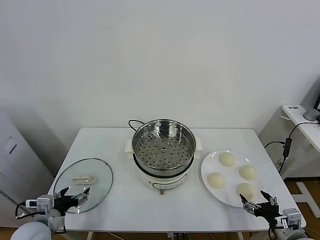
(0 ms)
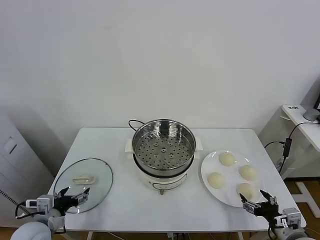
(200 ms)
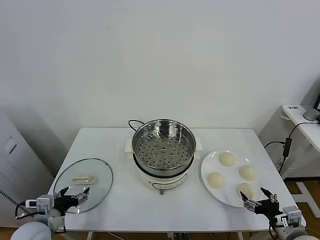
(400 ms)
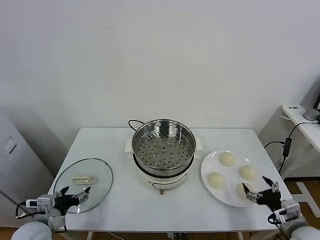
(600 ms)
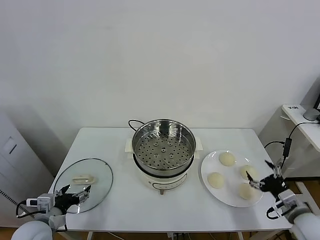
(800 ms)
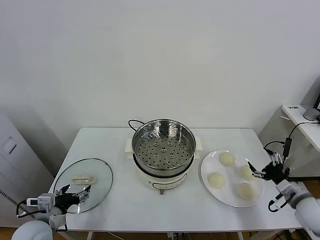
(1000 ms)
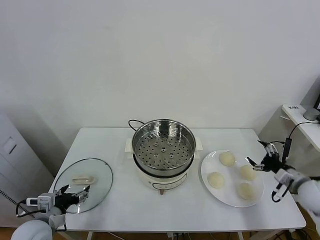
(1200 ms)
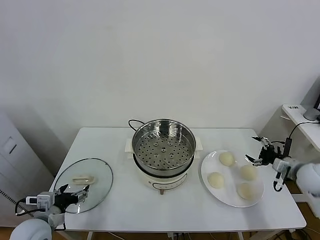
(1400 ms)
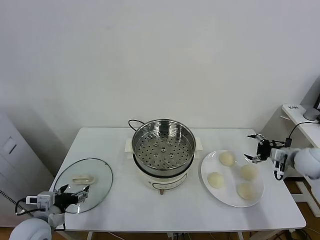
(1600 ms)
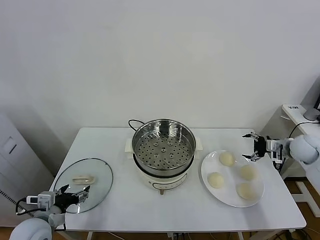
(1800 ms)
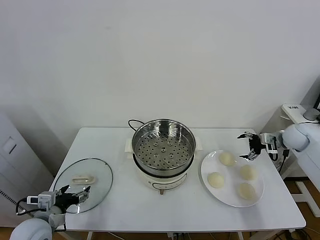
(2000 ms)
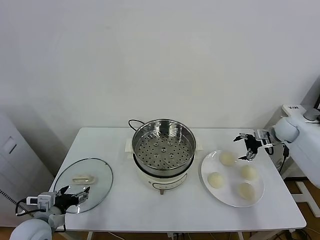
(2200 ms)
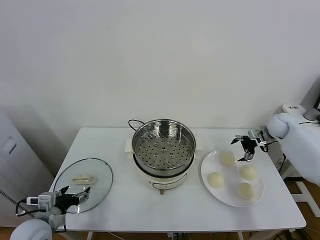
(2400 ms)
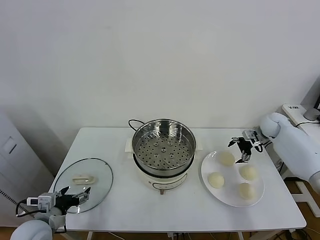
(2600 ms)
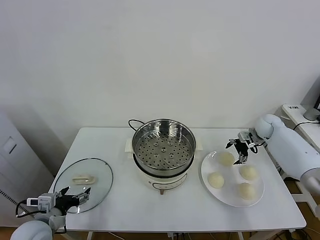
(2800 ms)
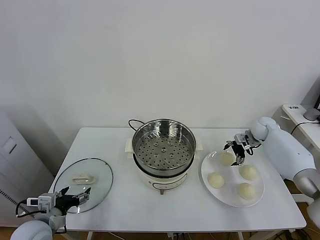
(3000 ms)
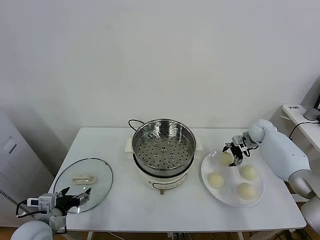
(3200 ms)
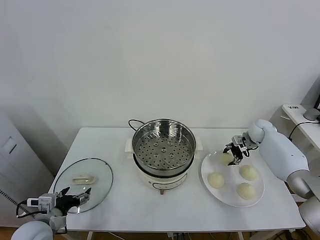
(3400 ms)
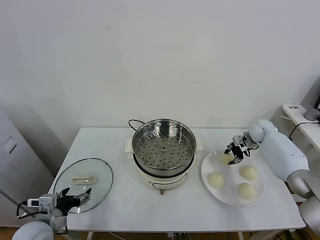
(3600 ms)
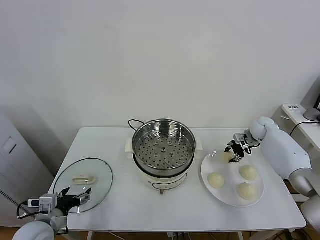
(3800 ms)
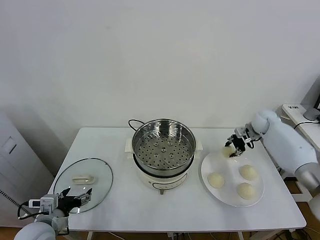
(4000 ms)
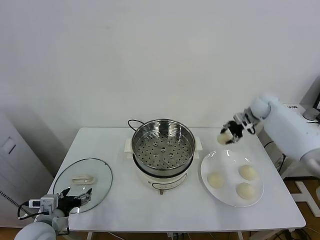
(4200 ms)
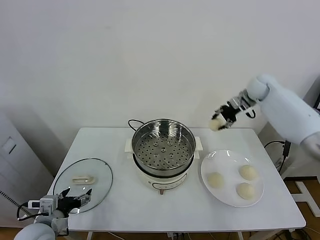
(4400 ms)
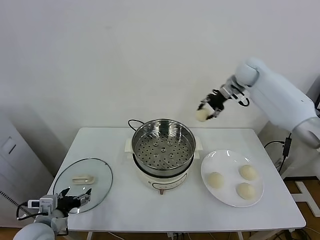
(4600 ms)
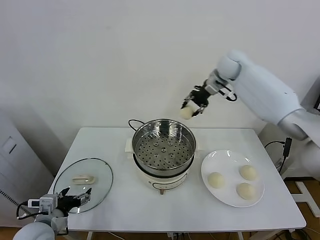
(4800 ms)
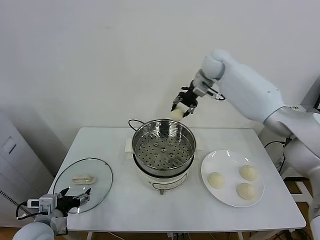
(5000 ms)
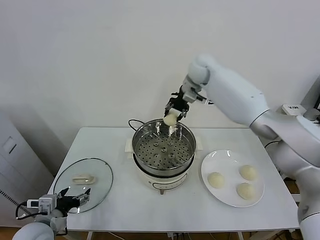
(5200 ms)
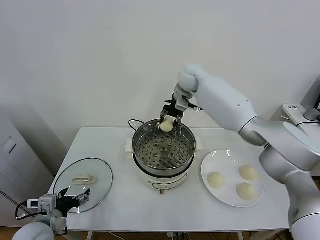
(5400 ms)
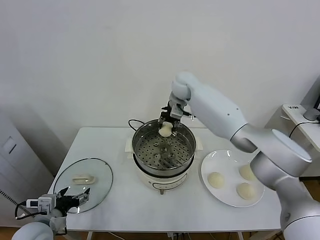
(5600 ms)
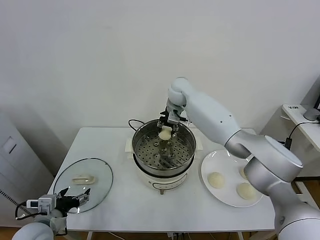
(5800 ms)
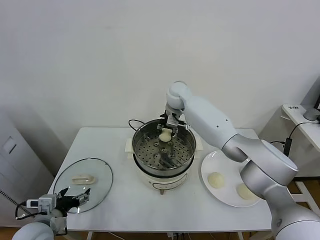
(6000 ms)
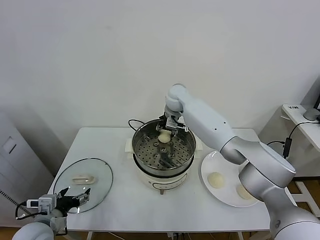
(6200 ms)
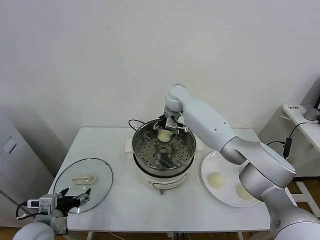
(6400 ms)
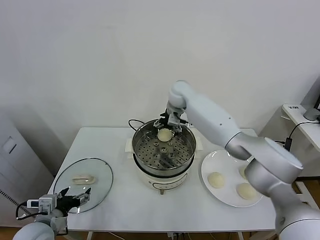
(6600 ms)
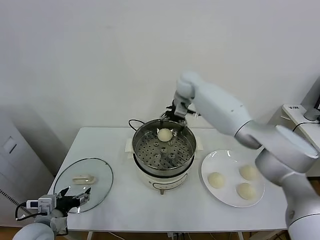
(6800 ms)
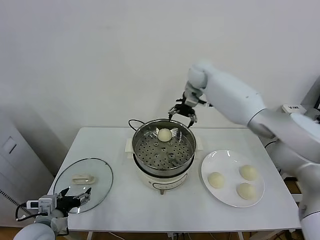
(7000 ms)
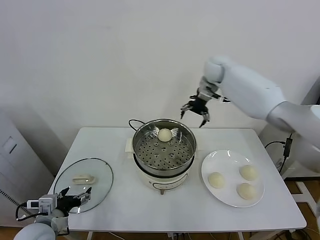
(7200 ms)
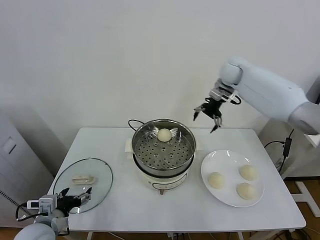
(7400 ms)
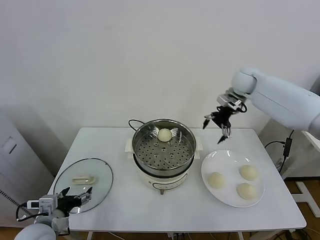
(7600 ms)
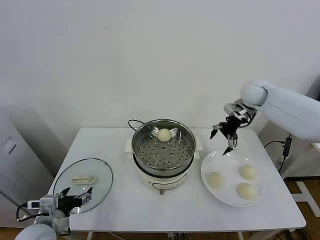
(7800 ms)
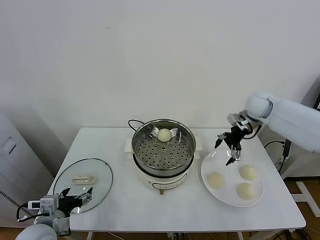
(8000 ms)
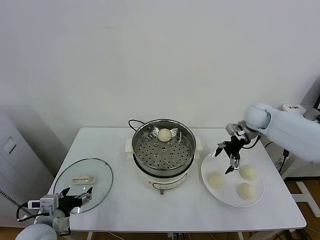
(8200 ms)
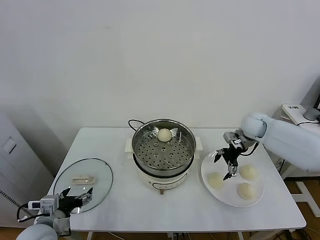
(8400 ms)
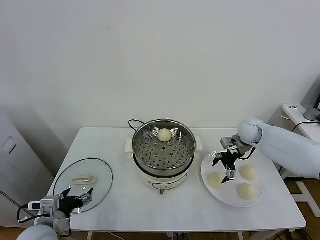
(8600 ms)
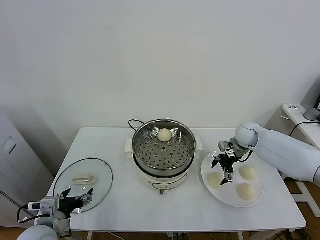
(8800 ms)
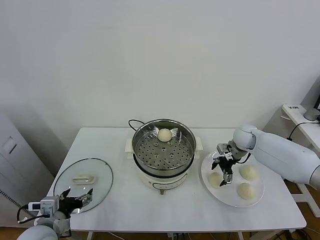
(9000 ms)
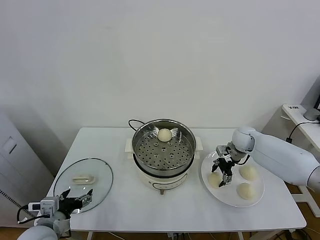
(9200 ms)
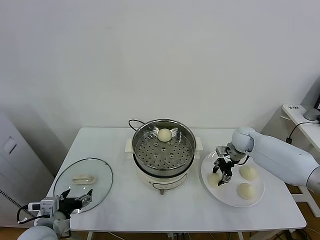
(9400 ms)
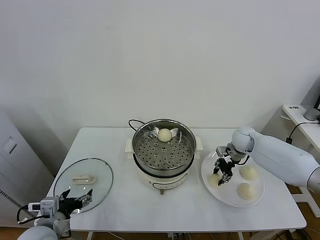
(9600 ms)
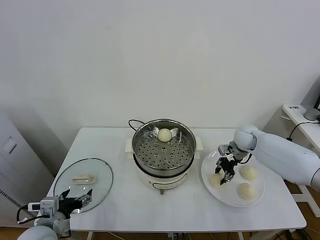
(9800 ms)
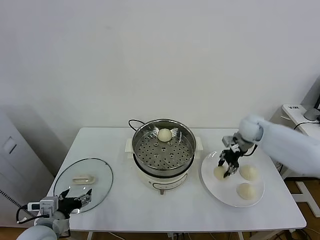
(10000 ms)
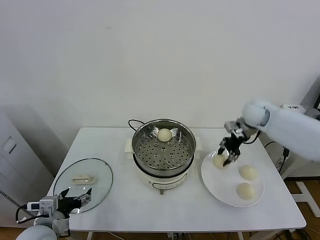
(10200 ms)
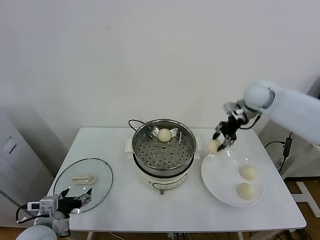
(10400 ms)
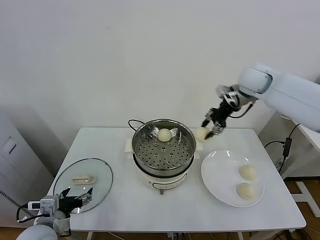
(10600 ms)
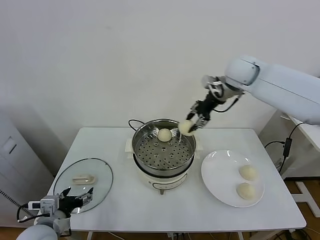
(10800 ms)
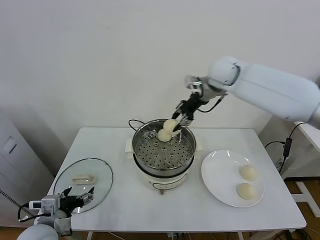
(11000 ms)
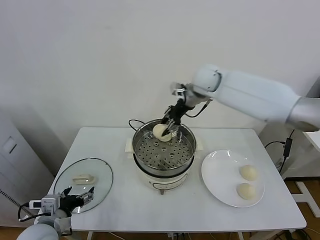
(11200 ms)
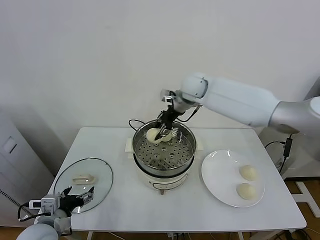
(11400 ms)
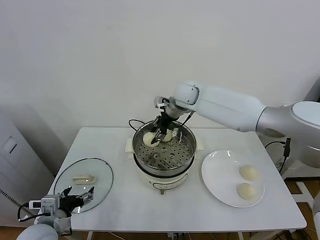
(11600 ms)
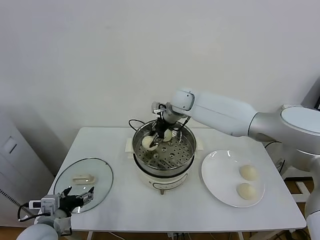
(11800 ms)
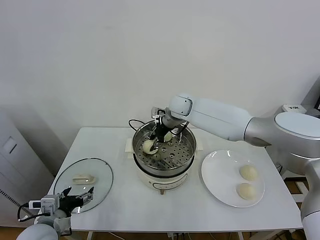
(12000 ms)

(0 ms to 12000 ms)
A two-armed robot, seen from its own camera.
Task of the whole recording: take steamed baozi put them in steamer.
Step, 0 ms - 3400 ms: Grasp the baozi in the plate with right gripper.
Step, 3600 ms - 6400 ms: Place the baozi on the steamer with right gripper.
Step, 6800 ms - 9200 ms: Grasp the baozi in the plate with right gripper.
1600 ms - 3000 ms: The right gripper heads forward and to the left, covering approximately 15 cm.
3000 ms - 4400 ms: The right gripper heads upward and to the left, covering about 25 cm, and closes its fingers.
4400 ms - 6000 ms: The right gripper heads to the left, covering some 25 cm.
6000 ms - 7600 ms: The right gripper is displaced to the right by roughly 25 cm, and opens its fingers.
7600 ms - 9000 ms: The right gripper moves downward, some 20 cm.
9000 ms - 10400 ms: The right gripper goes approximately 20 cm upward, and closes.
10400 ms - 12000 ms: The right gripper is displaced to the left and downward by some 25 cm.

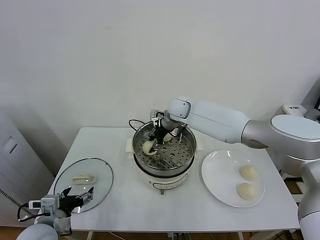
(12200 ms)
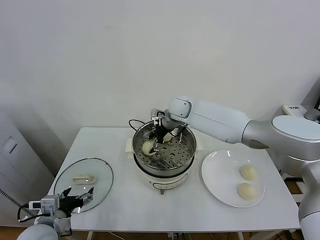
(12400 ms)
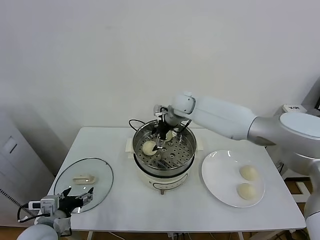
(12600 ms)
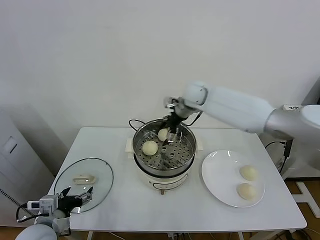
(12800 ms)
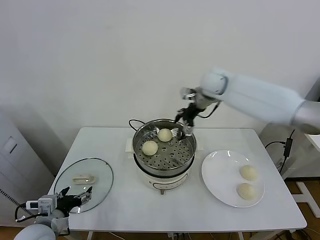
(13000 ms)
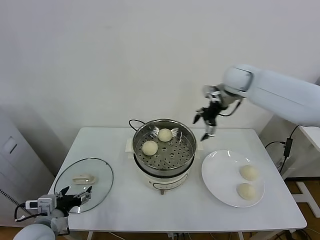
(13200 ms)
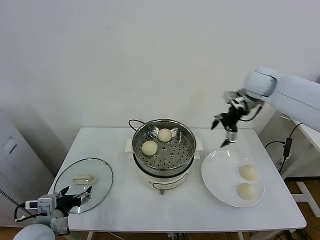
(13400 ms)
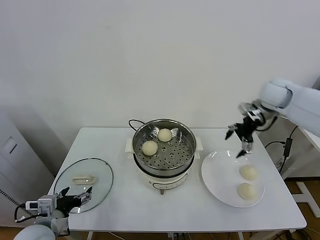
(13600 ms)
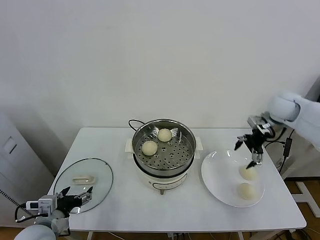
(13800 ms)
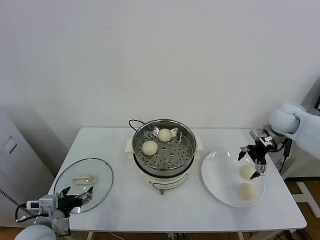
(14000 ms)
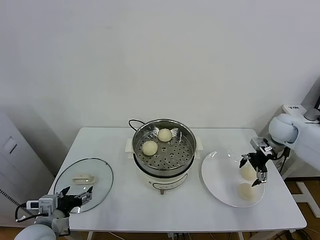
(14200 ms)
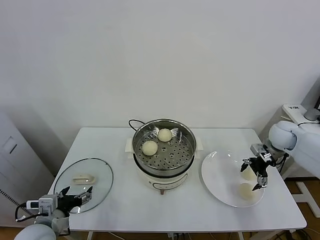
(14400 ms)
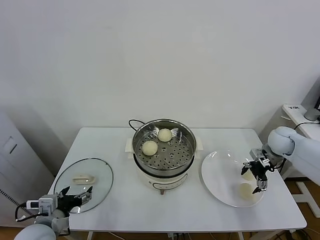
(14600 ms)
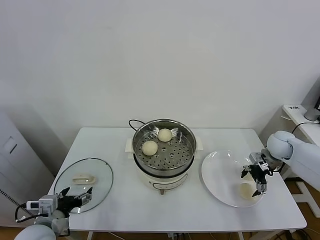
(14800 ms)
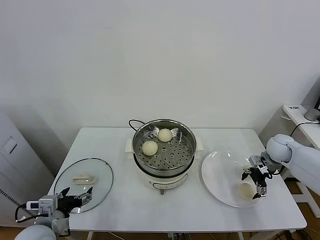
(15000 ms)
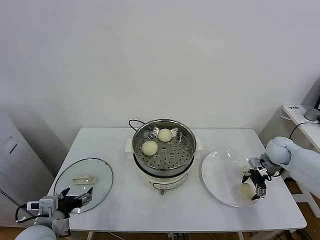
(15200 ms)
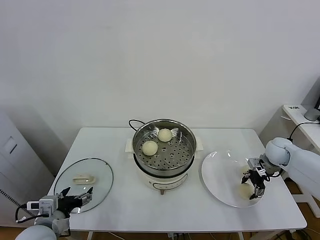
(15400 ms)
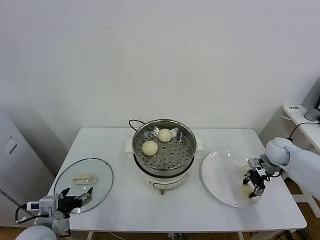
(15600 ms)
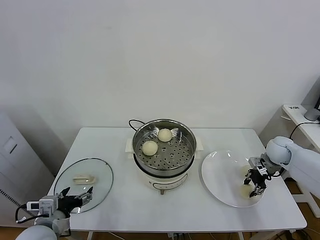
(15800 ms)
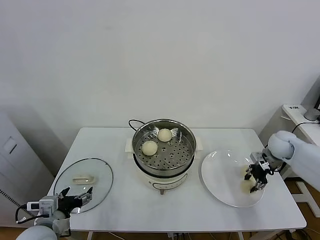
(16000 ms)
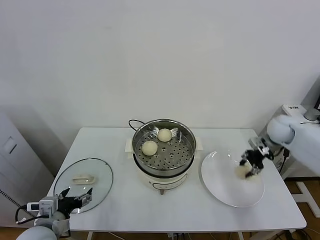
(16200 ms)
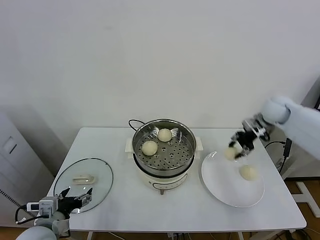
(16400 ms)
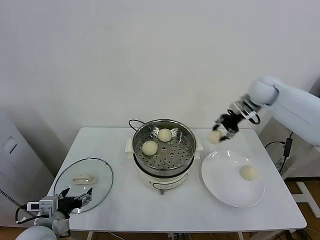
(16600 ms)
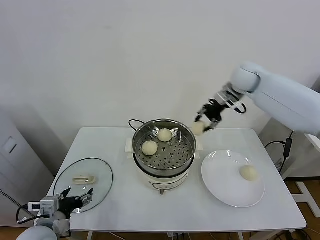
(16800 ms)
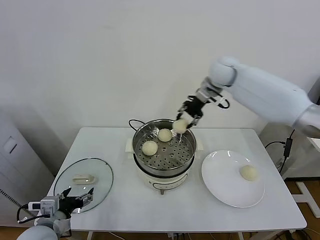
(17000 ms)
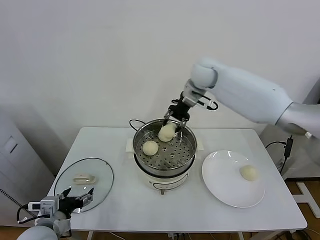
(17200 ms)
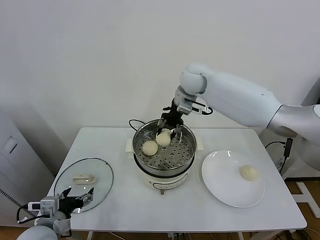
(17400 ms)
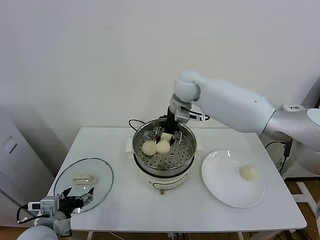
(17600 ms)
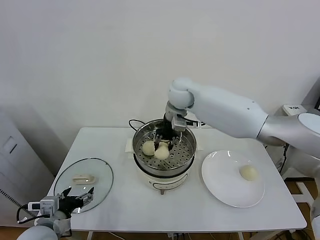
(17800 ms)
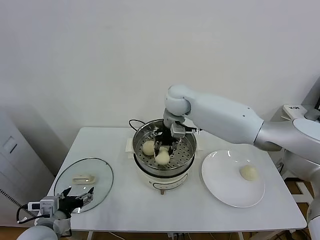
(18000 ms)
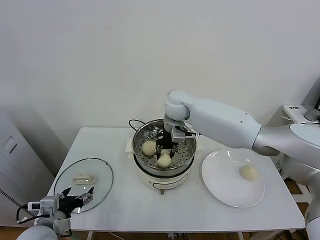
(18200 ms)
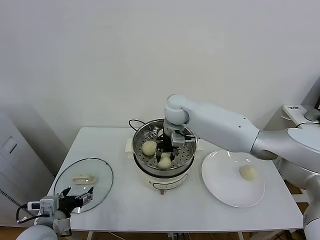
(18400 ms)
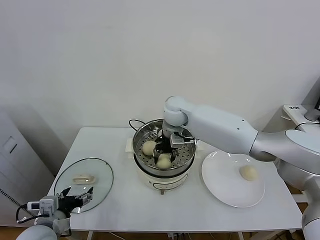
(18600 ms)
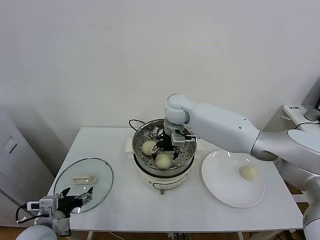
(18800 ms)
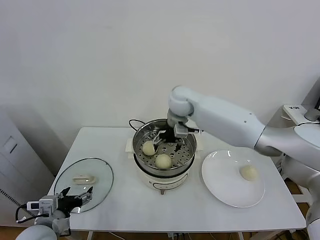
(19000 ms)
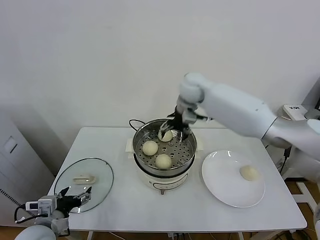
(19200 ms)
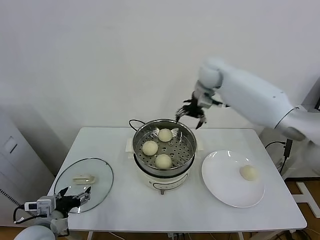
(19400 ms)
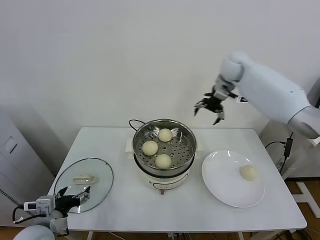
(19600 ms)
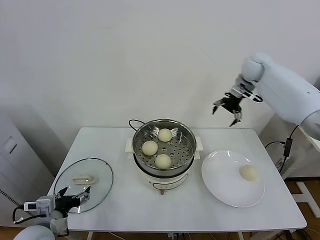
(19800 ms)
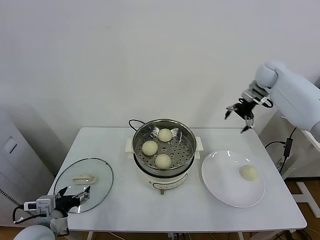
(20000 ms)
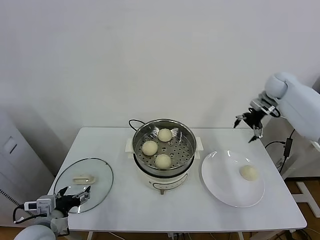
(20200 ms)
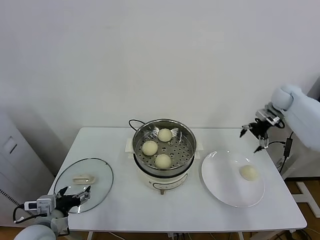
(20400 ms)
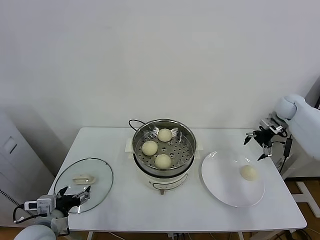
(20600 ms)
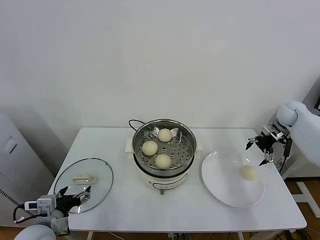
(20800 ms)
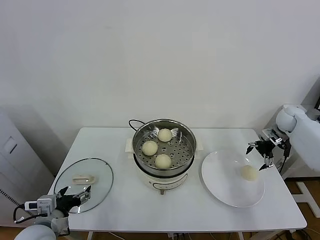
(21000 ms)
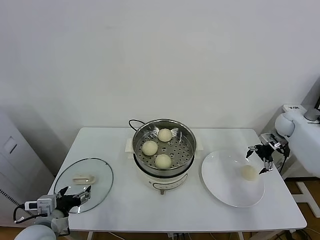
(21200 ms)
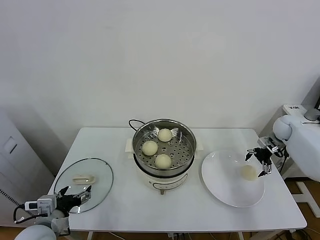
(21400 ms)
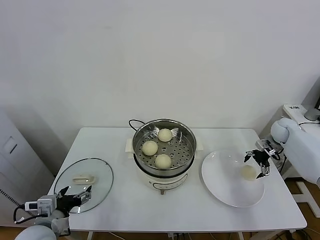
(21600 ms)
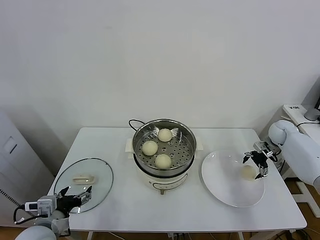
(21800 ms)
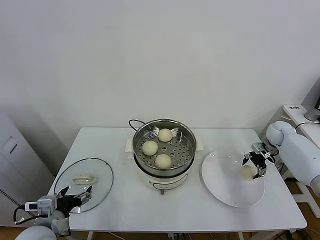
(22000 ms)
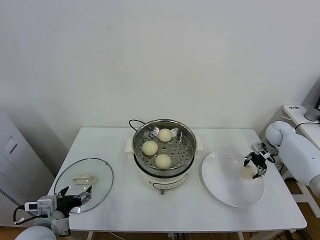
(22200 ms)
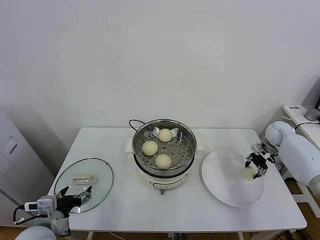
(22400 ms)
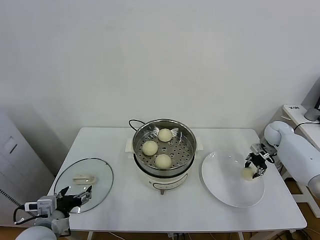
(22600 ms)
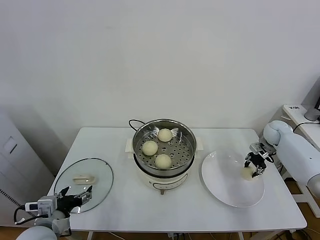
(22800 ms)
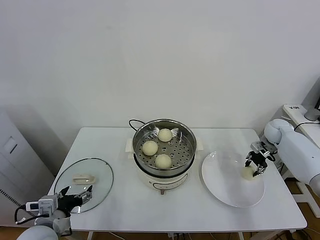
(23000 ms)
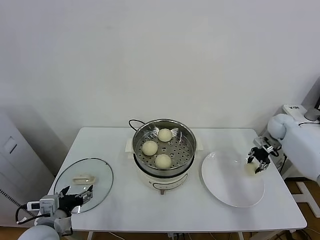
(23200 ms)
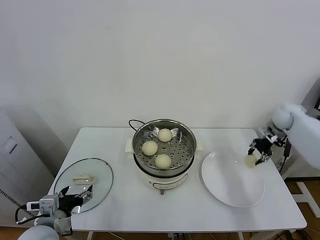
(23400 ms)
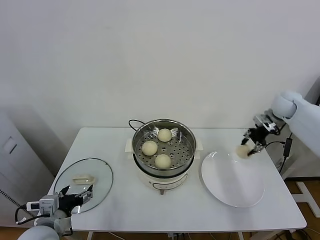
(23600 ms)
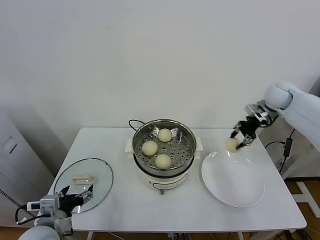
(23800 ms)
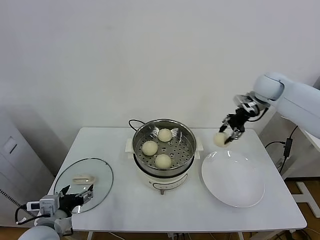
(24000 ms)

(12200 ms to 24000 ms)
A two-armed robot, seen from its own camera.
Task of the whole recording: take steamed baozi put them in steamer.
Step, 12800 ms - 15600 ms: Grasp the baozi in the plate with right gripper.
Step, 15800 ms - 19000 ms: Place the baozi on the steamer with right gripper.
Step, 19200 ms - 22200 ms: Grasp the baozi in the plate with right gripper.
12200 ms - 13600 ms: The right gripper shifts roughly 30 cm to the right, and opens.
13600 ms - 15200 ms: The right gripper goes approximately 20 cm downward.
15200 ms - 16600 ms: The right gripper shifts roughly 25 cm upward, to the left and forward, and closes its fingers.
16600 ms - 18200 ms: The right gripper goes approximately 25 cm to the left.
18200 ms - 19600 ms: The right gripper is displaced to the right, upward and forward by roughly 25 cm, and opens up.
19600 ms - 21000 ms: The right gripper is displaced to the right and downward by about 30 cm.
21000 ms - 22600 ms: The right gripper heads downward, covering about 5 cm, and closes.
22600 ms - 24000 ms: The right gripper travels upward and to the left by approximately 25 cm.
